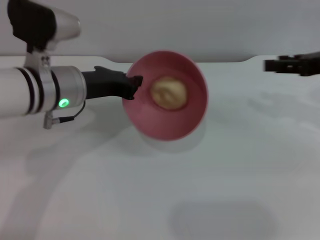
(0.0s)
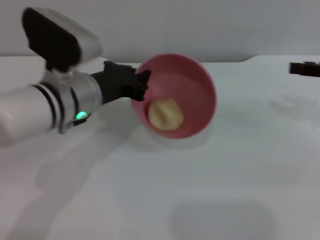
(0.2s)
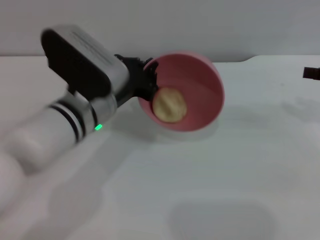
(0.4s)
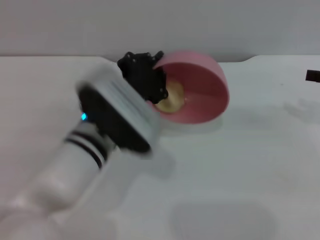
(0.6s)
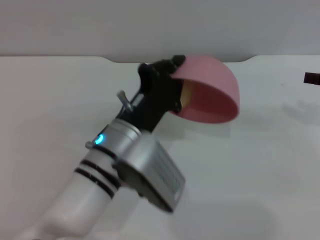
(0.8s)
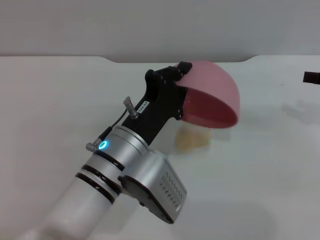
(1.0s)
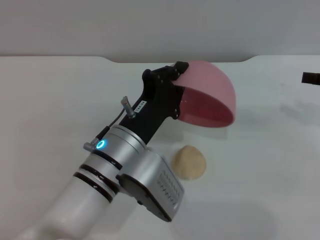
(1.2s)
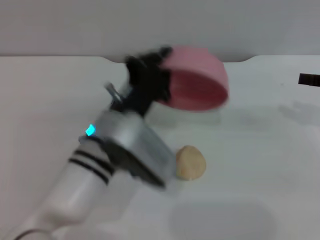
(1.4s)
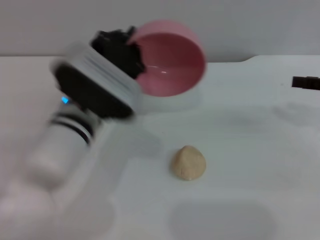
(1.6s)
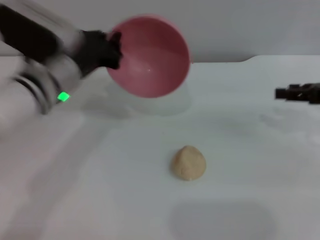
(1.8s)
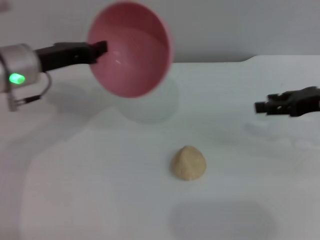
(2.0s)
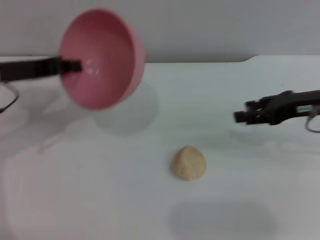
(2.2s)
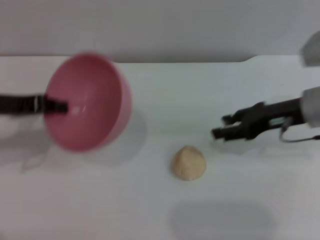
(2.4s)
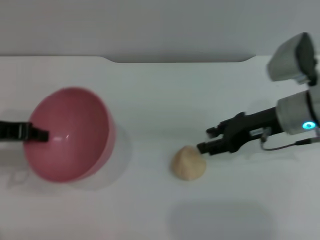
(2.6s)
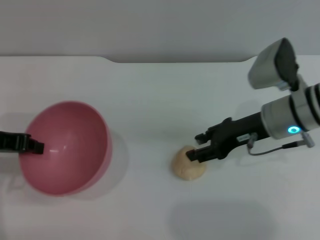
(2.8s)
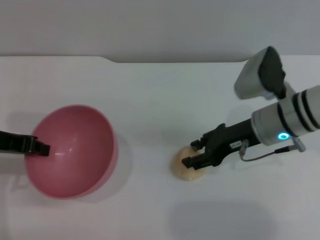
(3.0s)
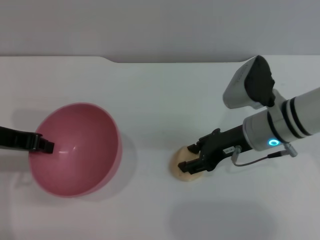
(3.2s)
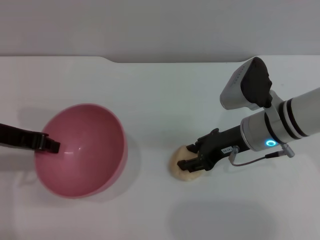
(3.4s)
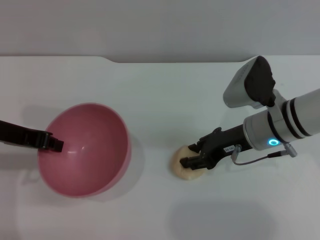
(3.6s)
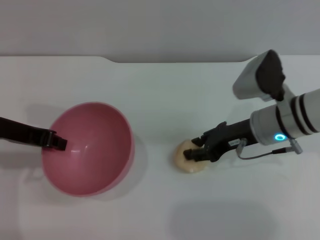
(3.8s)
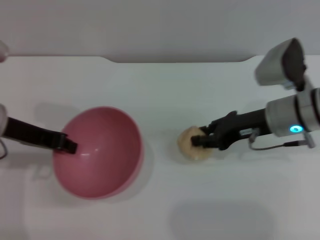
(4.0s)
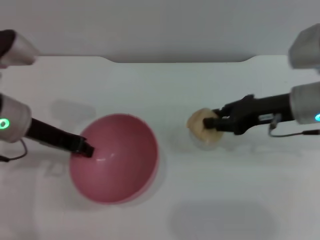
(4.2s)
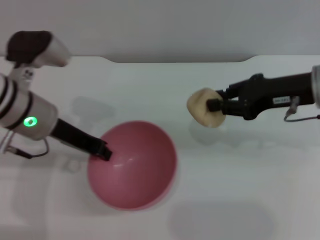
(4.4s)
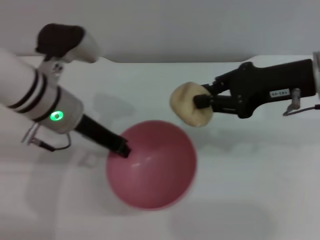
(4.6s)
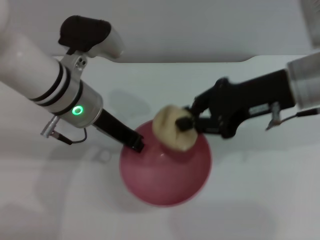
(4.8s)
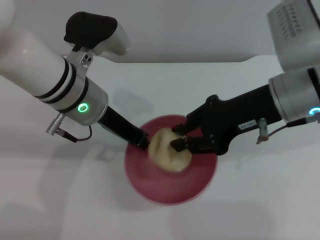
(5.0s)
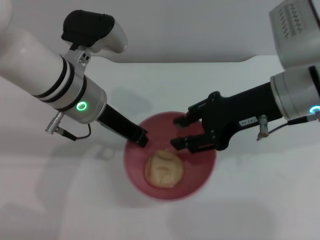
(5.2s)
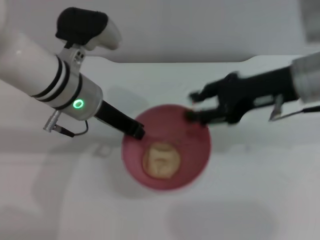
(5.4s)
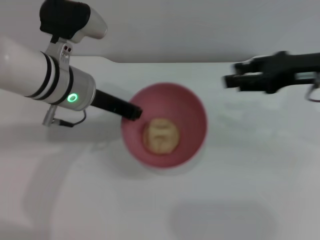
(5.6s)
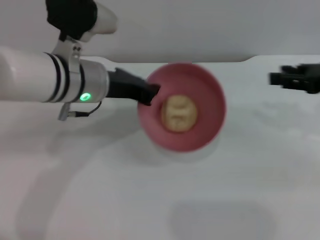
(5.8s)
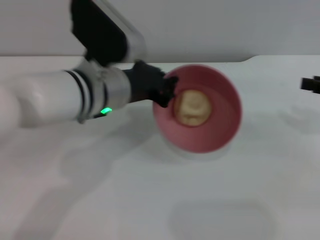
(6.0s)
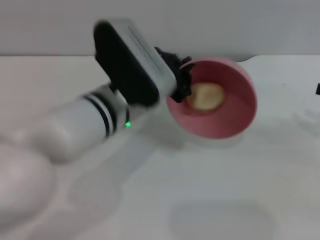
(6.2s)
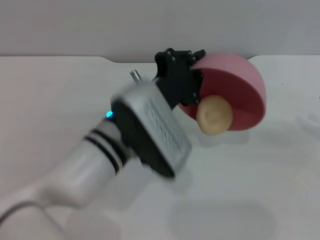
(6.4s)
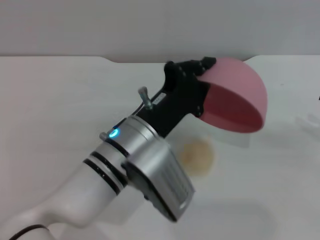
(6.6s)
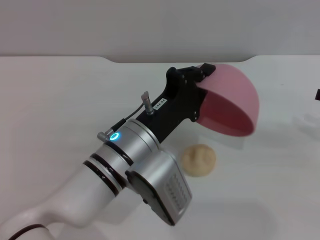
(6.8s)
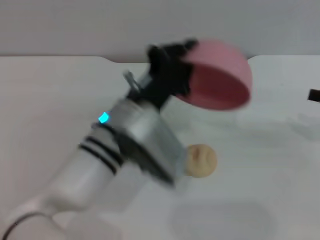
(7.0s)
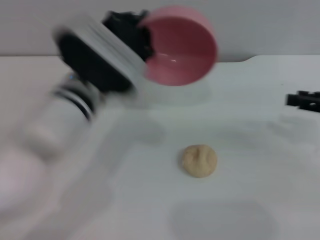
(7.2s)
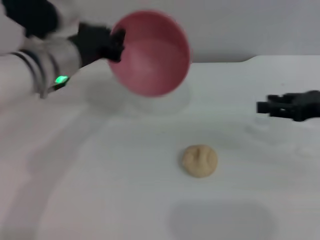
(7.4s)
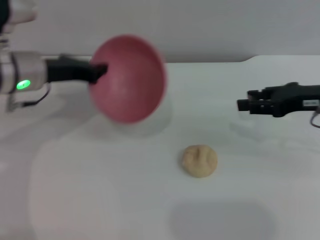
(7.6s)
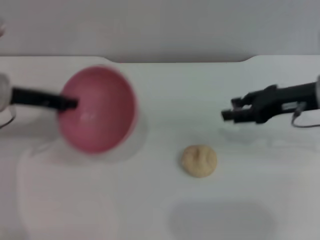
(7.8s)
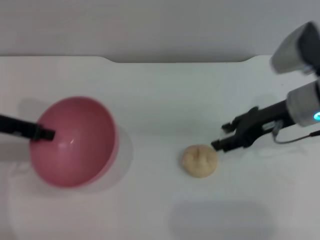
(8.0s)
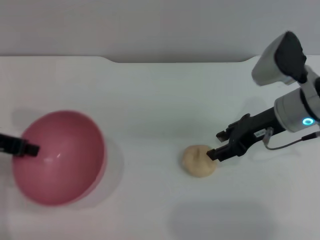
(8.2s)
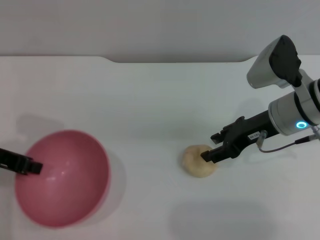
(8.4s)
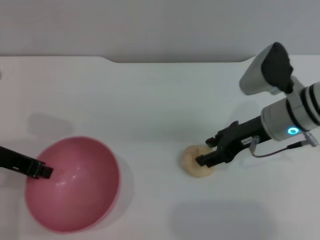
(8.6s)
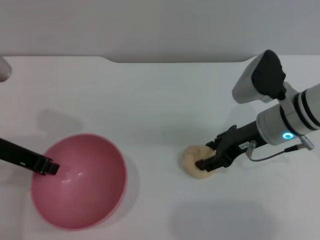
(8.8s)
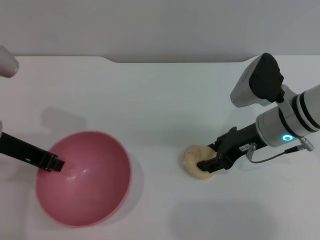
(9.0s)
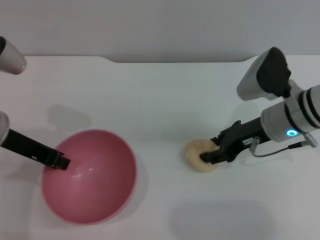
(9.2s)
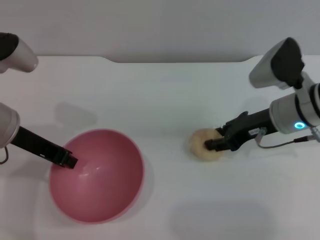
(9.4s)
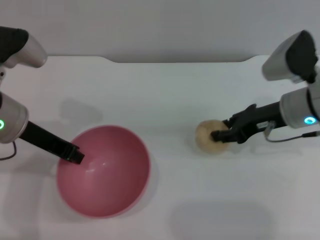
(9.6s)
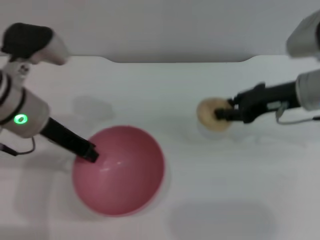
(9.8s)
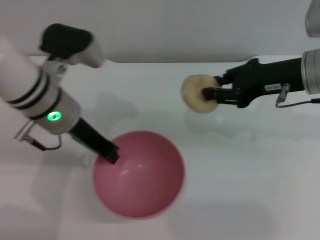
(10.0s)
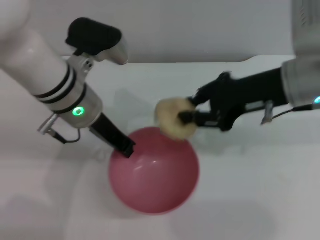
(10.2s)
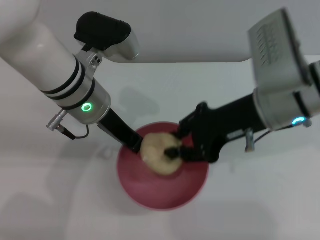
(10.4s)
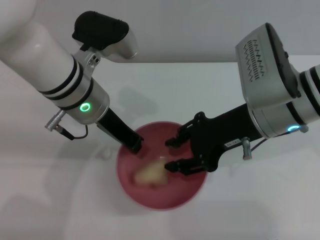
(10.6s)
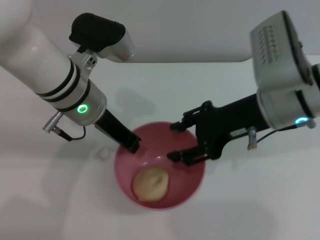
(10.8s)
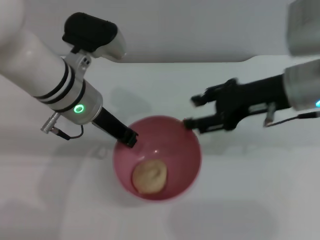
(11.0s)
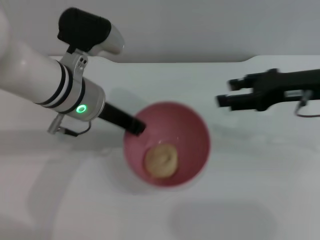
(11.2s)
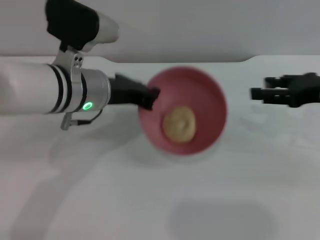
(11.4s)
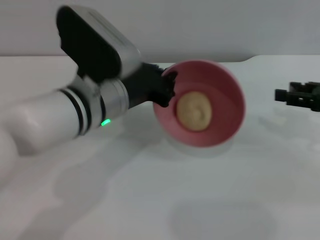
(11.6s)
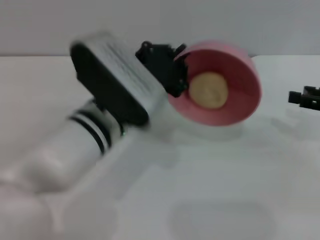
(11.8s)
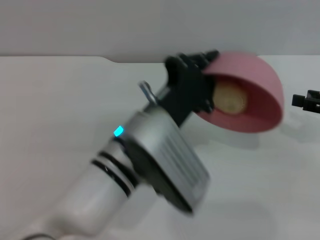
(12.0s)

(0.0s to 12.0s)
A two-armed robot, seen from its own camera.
Task of the whole recording: put the egg yolk pastry into the pink bowl and pour it out repeatedly.
Step, 0.2s - 1.2s: Pour the egg yolk pastry out of bowl.
Step, 1.4s - 4.2s: Pick up the egg yolk pastry with the right gripper.
Step, 4.4s - 5.4s: Place the egg yolk pastry into the bowl.
Step, 5.8s - 6.6s: Pour the egg yolk pastry out of bowl.
Step, 6.8s - 9.6s: Pick up the egg yolk pastry with the right gripper.
Step, 9.8s - 10.8s: Place the egg yolk pastry into the bowl.
0.0s - 1.6s: The right gripper changes place by about 5 cm, while the left gripper moves to the right, approximately 5 cm.
1.6s - 3.0s: Both grippers move to the left, about 20 cm.
3.0s - 4.4s: The left gripper heads to the right, covering approximately 10 cm. The right gripper heads upward and to the right, covering about 10 cm, and closes up.
4.4s - 6.0s: The grippers both shift to the right by about 10 cm. The right gripper opens its fingers.
6.0s - 7.6s: The left gripper goes approximately 10 cm to the left; the right gripper shifts approximately 10 cm to the left.
7.6s - 9.0s: The left gripper moves backward, about 10 cm; the right gripper goes some 10 cm to the left and downward.
9.0s - 10.4s: The left gripper heads to the right and forward, covering roughly 15 cm, while the right gripper moves upward, roughly 10 cm, and closes up.
10.4s - 12.0s: The left gripper travels backward and to the right by about 15 cm. Meanwhile the right gripper goes some 20 cm to the right, and opens up.

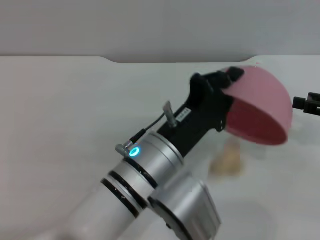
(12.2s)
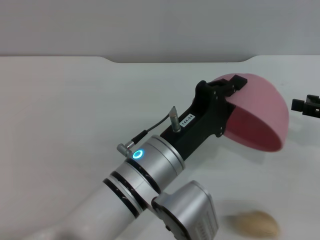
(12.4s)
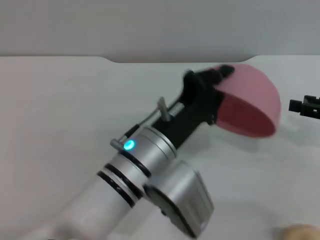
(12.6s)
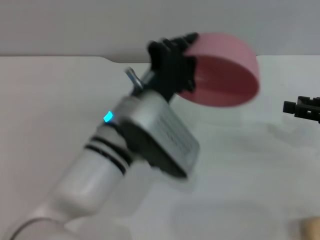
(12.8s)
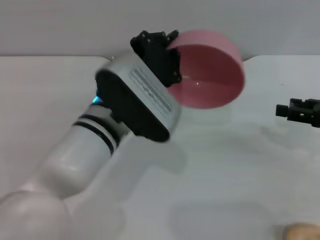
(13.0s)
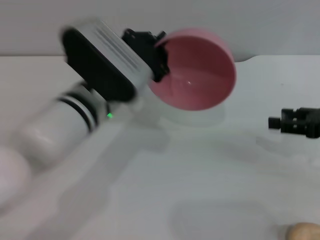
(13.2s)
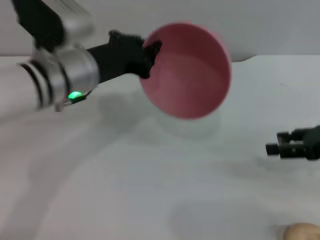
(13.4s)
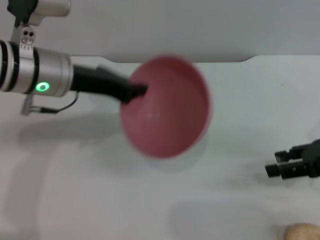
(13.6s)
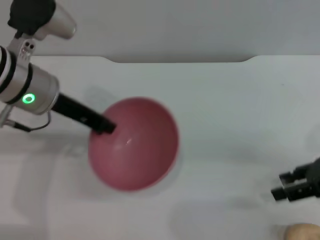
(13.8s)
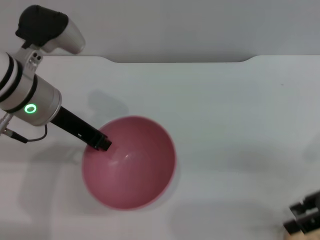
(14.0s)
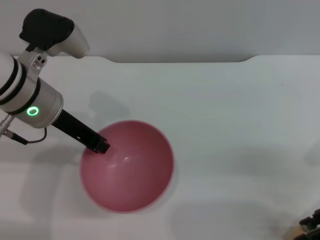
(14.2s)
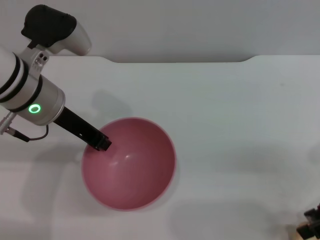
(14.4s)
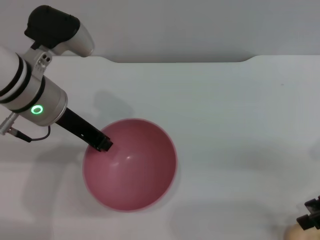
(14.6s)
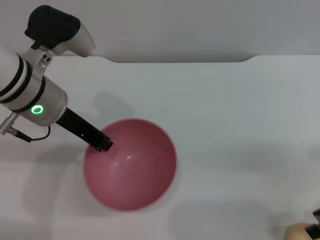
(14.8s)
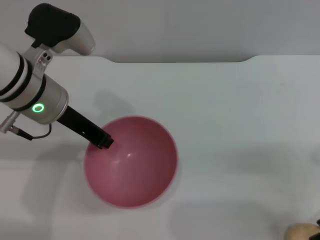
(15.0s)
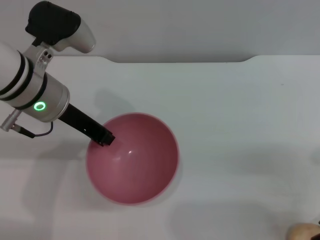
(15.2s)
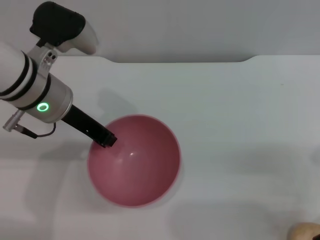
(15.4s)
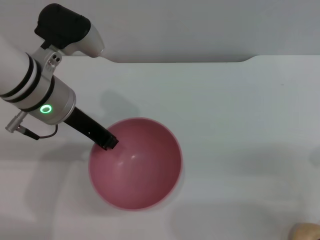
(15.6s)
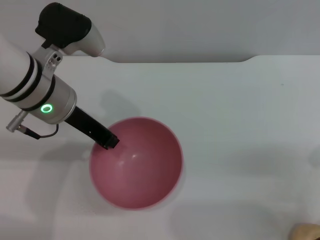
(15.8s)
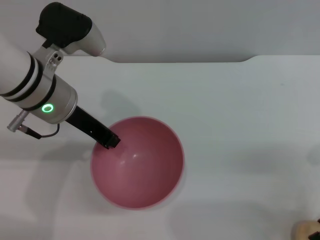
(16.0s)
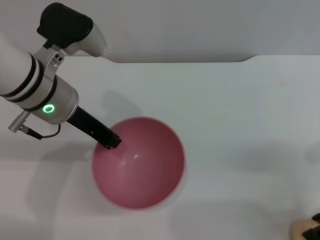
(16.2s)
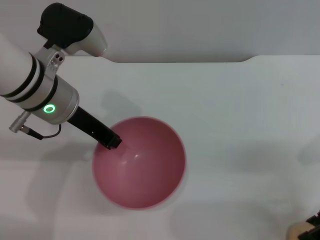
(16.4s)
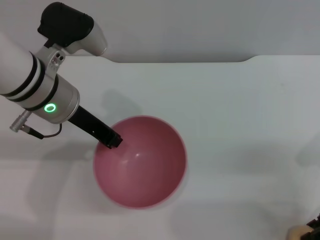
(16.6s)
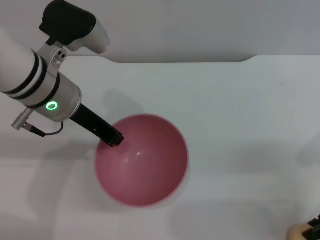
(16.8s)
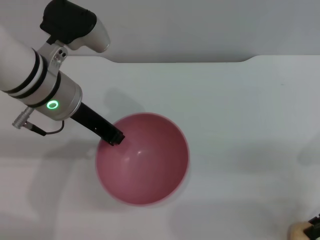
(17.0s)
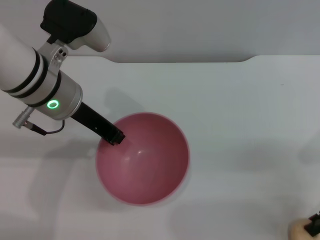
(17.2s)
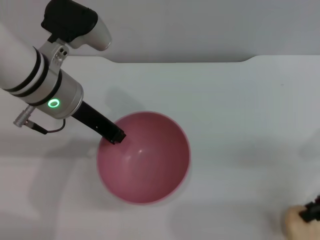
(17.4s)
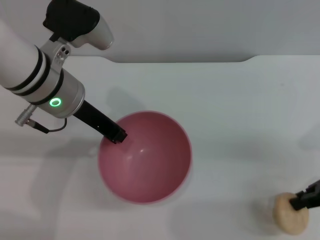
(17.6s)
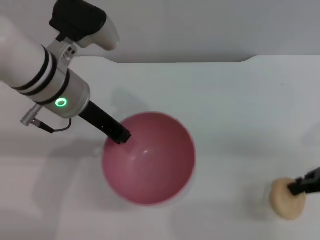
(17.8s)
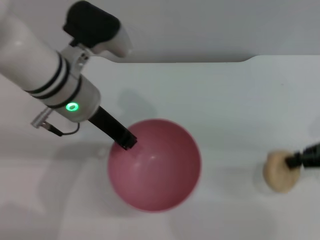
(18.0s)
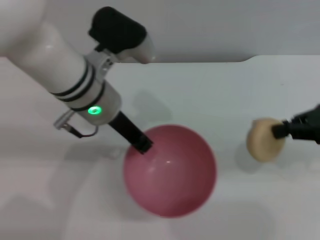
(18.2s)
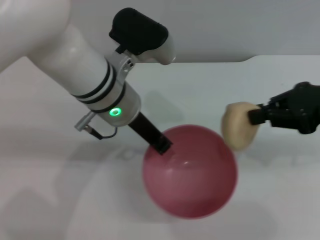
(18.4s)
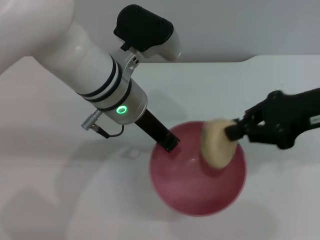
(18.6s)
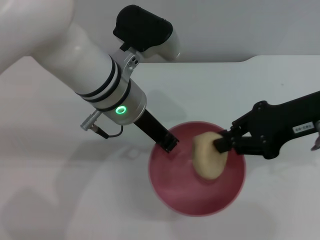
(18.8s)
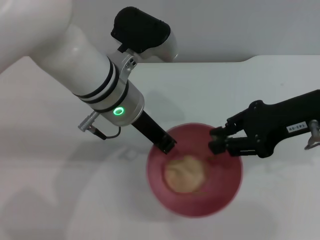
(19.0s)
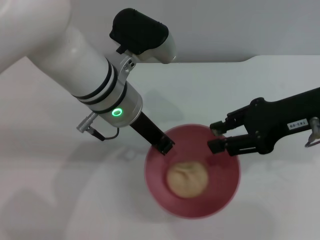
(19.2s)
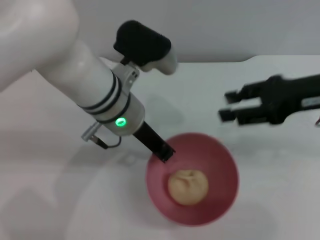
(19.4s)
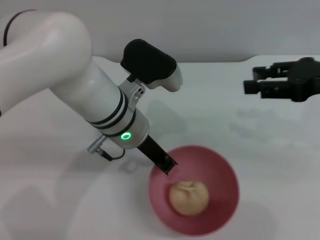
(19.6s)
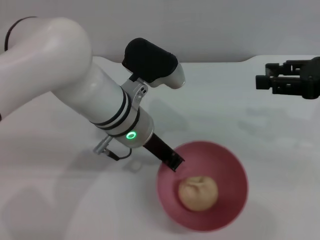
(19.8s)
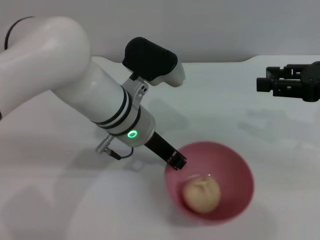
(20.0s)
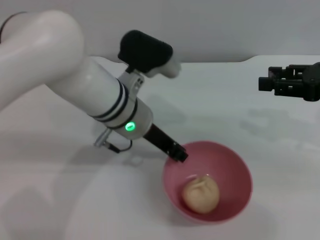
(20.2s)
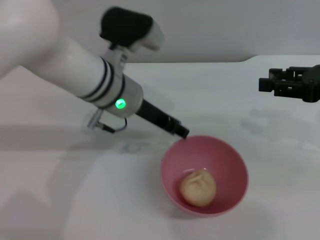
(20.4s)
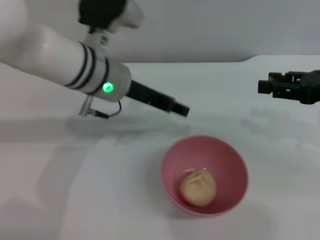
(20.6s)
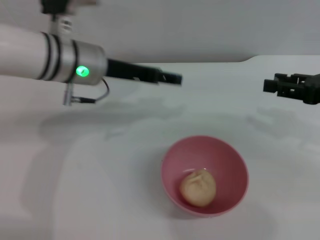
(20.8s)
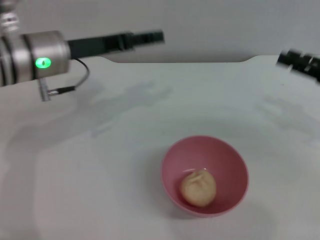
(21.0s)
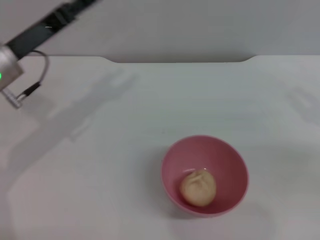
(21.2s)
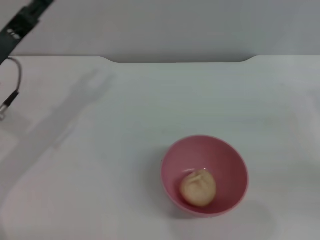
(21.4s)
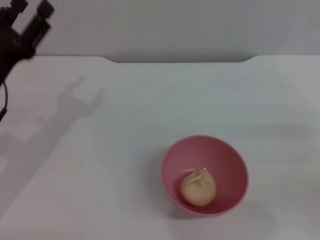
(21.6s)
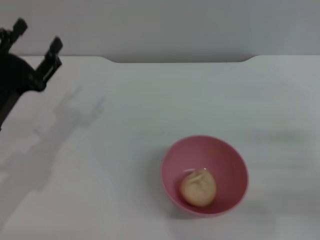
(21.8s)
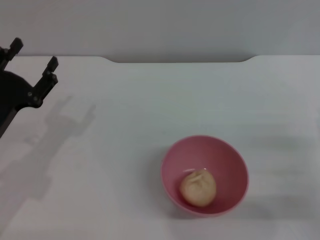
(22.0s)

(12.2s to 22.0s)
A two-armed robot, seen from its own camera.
Task of the whole recording: put the egg yolk pastry into the pink bowl and pour it out repeatedly.
Step, 12.4s - 17.8s: Pick up the egg yolk pastry with the right gripper.
Step, 18.0s - 19.4s: Place the egg yolk pastry into the bowl.
Step, 19.6s - 20.6s: Place the bowl on the table.
12.2s - 13.6s: The left gripper is displaced to the left, forward and upward by roughly 20 cm.
15.0s - 16.4s: The grippers make only small movements.
16.4s - 17.8s: The right gripper closes its fingers.
17.8s - 19.2s: The left gripper travels to the right by approximately 5 cm; the right gripper goes some 10 cm to the left and upward.
19.2s - 20.6s: The left gripper opens its fingers; the right gripper heads to the right, covering some 10 cm, and opens.
20.6s - 22.0s: The right gripper goes about 15 cm downward and backward, while the left gripper heads to the left, backward and downward, covering some 25 cm, and opens its fingers.
